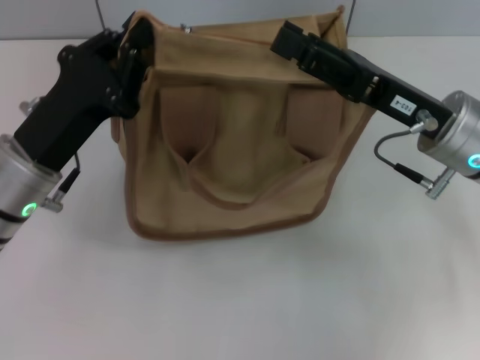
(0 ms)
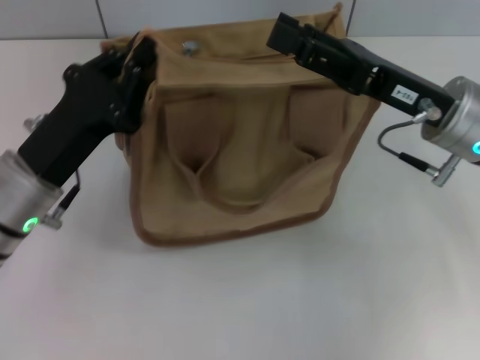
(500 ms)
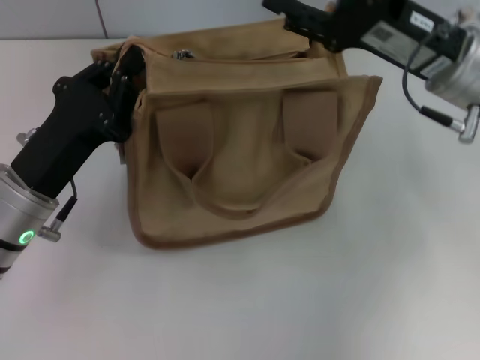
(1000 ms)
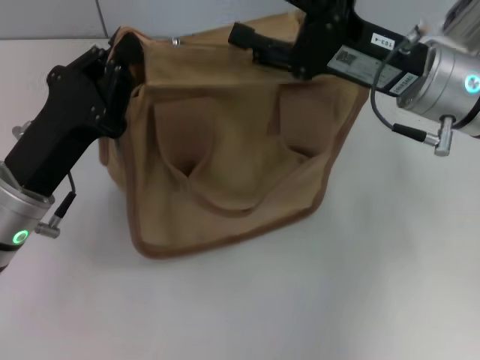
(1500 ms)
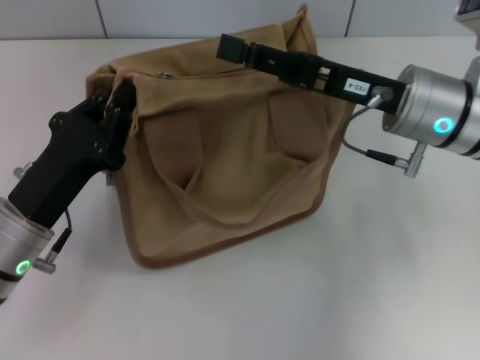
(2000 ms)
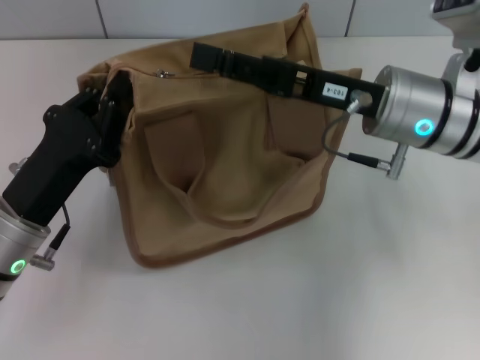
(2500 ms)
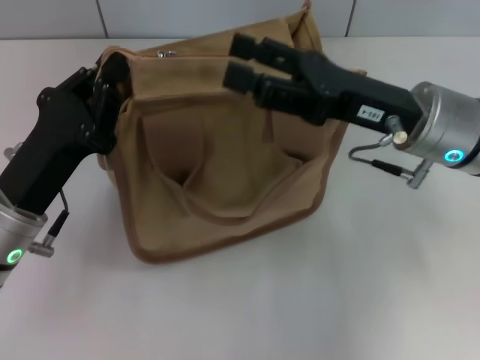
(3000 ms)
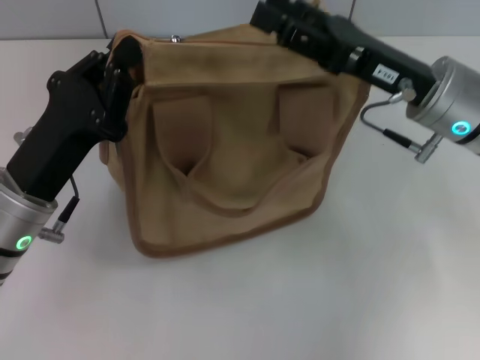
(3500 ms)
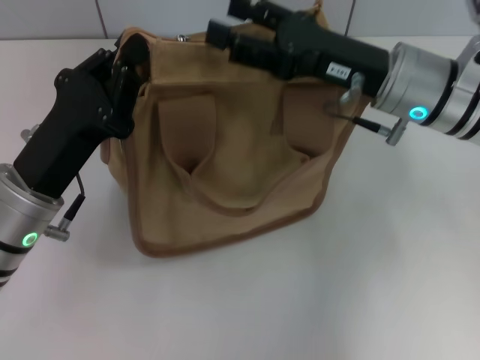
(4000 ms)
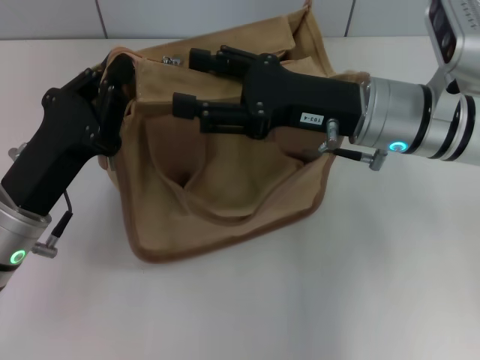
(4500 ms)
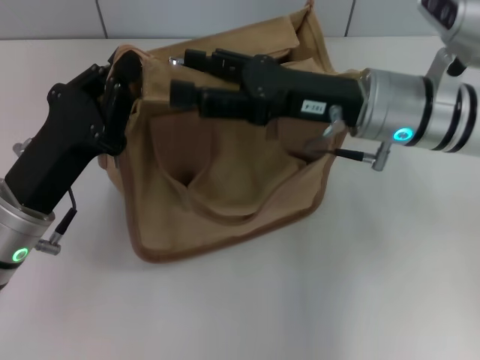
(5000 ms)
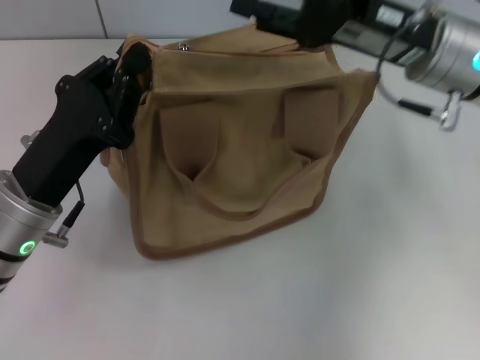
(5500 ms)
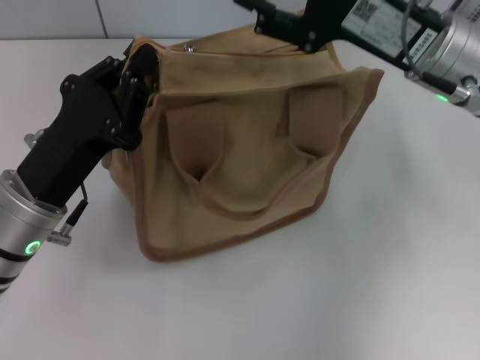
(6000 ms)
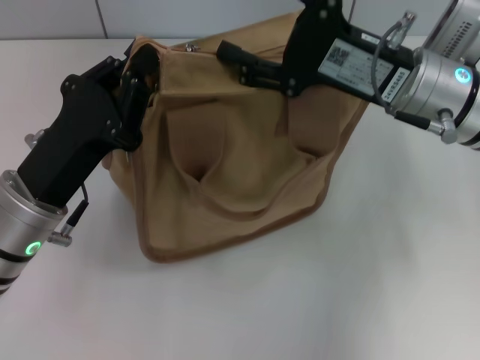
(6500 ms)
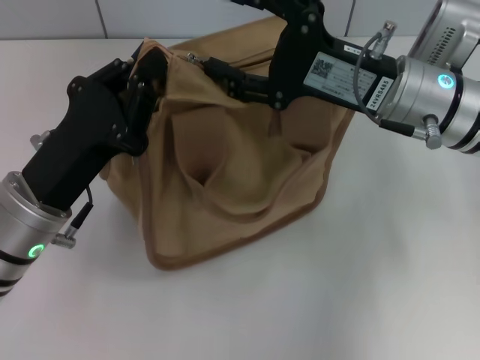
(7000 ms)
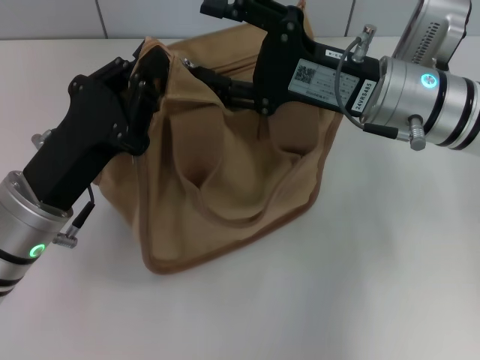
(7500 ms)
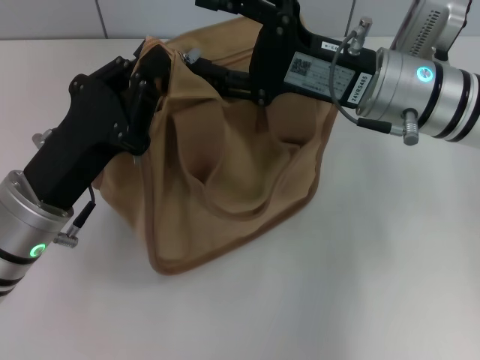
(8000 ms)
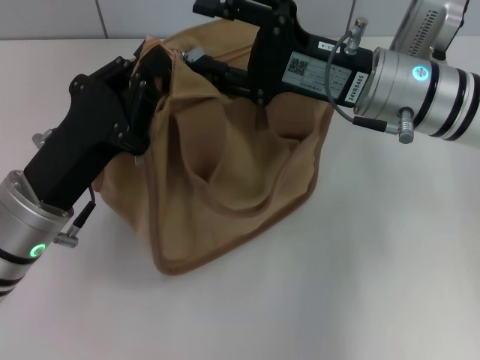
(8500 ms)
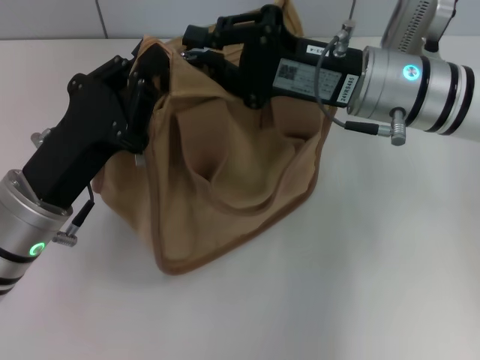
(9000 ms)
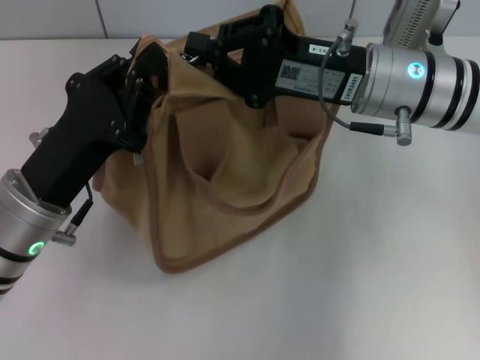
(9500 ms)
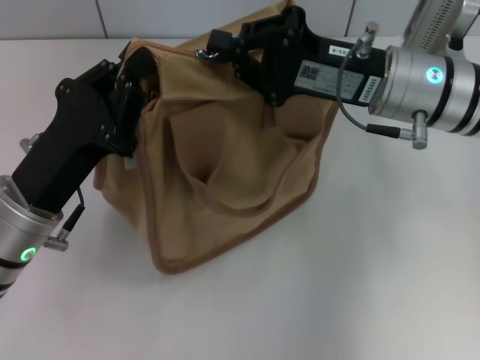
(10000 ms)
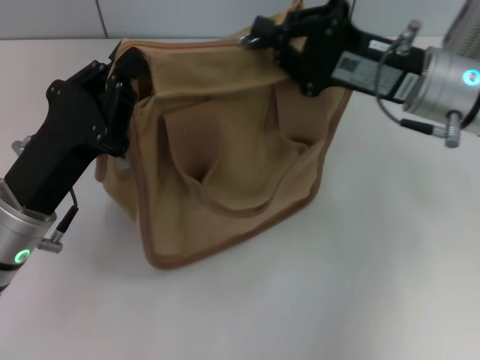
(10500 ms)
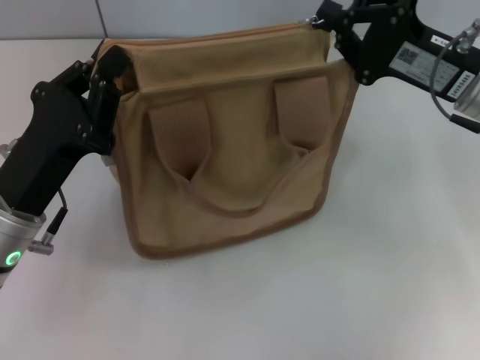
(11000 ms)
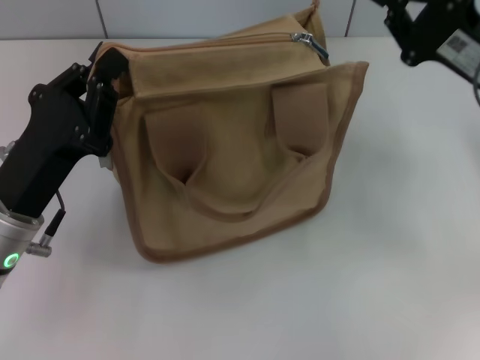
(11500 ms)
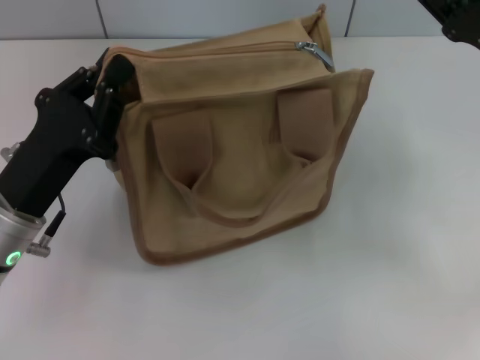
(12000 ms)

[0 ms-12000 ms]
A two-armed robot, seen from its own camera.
Step, 0 ms to 11000 ms: Pull up the zipper with your right hand.
0 ms to 2000 ms: The left gripper ends up some 5 cm from where it was.
8000 ms to 10000 ms: The right gripper closes its fingers.
10000 ms to 12000 ms: The right gripper goes approximately 10 cm to the right, and opens its fingers.

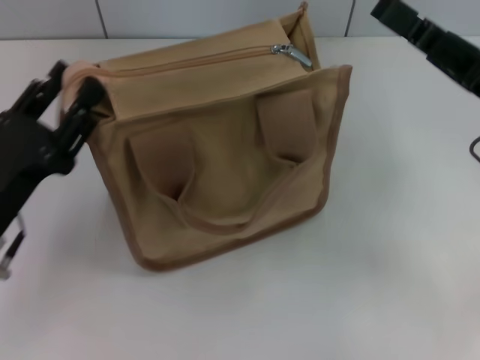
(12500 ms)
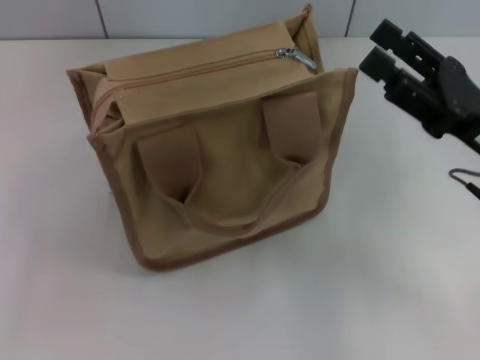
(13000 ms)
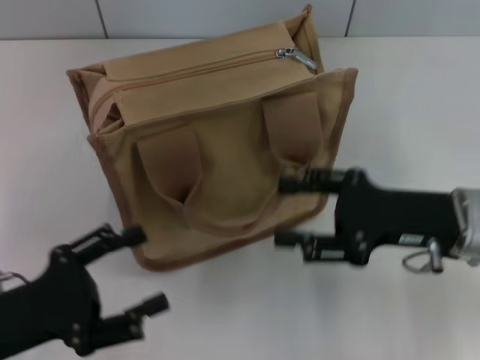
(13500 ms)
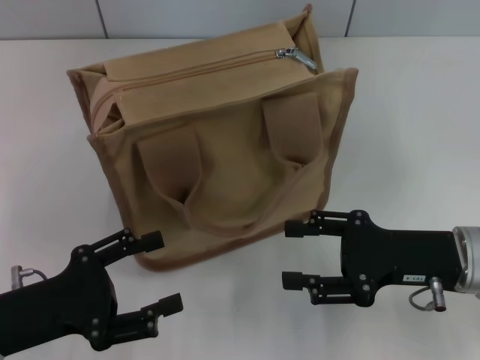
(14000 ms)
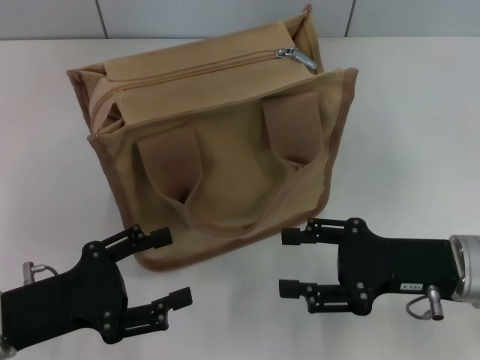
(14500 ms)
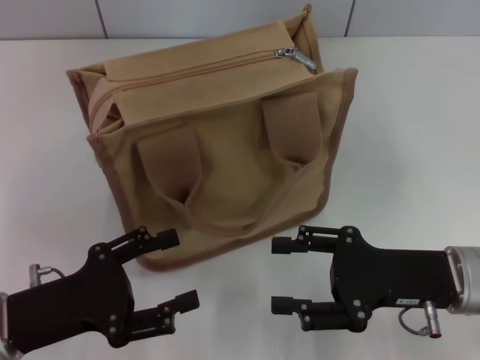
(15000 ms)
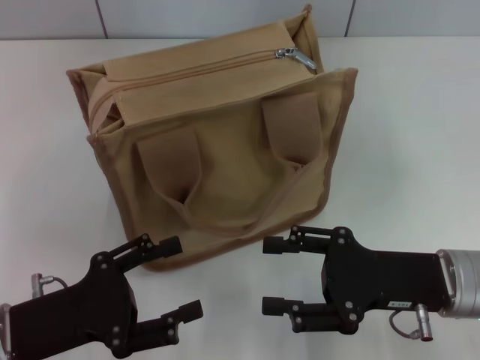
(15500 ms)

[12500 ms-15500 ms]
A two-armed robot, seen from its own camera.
12500 ms to 14000 ms: The left gripper opens its fingers, while the right gripper shifts roughly 5 cm downward.
14000 ms to 15500 ms: The grippers make only small movements.

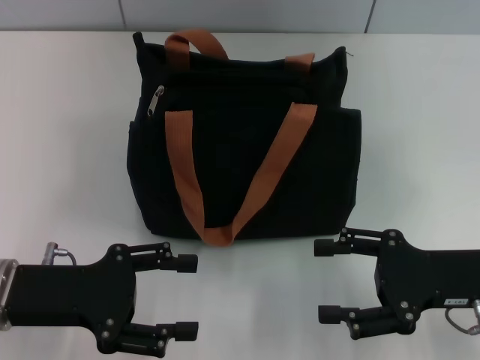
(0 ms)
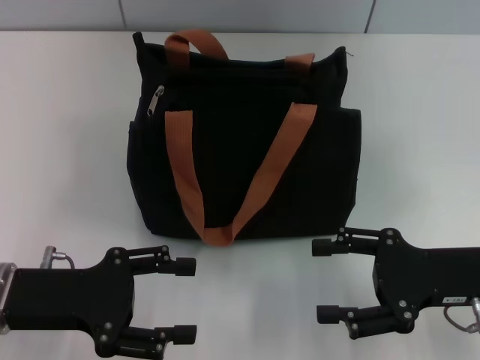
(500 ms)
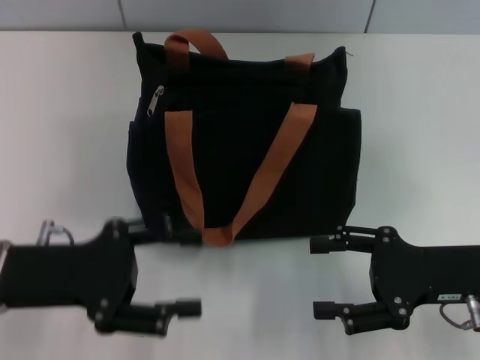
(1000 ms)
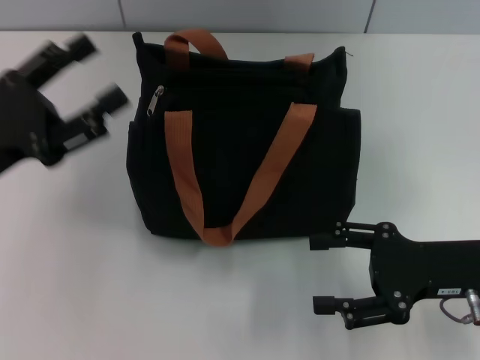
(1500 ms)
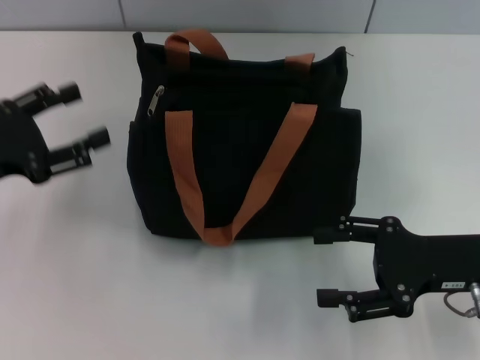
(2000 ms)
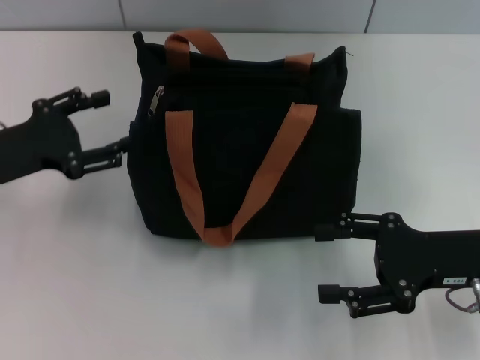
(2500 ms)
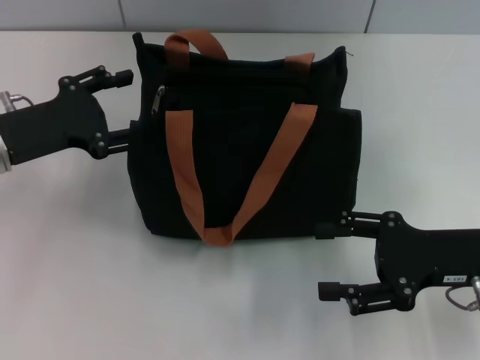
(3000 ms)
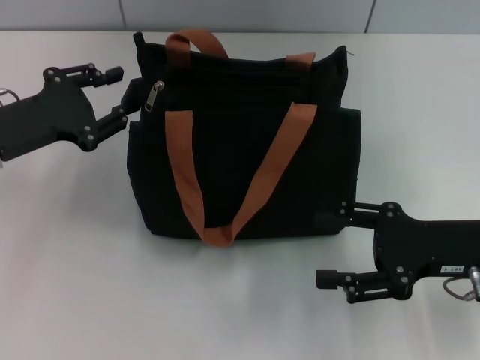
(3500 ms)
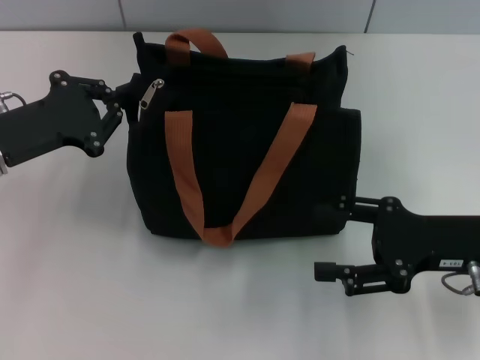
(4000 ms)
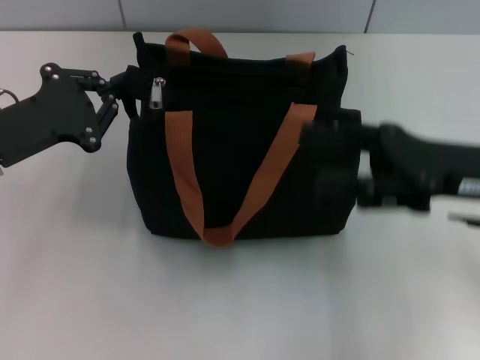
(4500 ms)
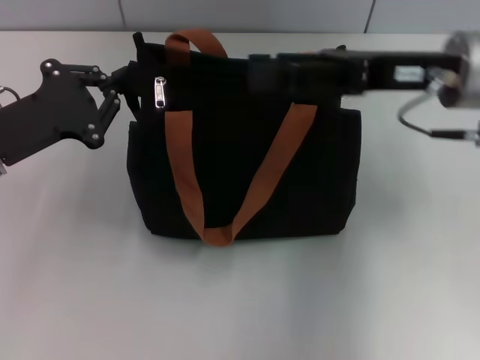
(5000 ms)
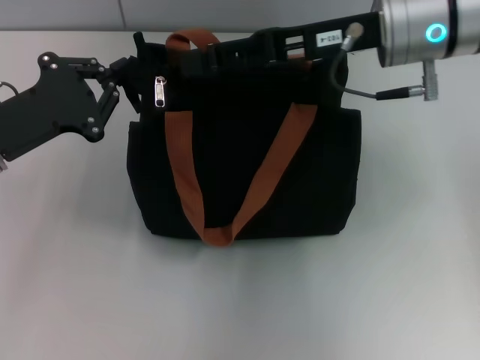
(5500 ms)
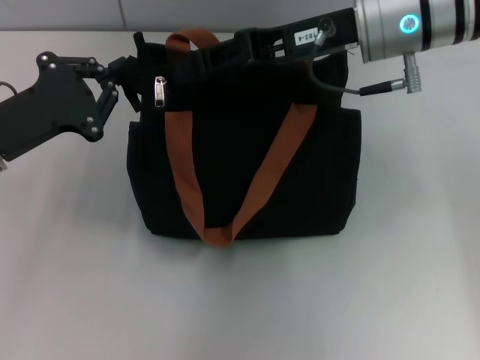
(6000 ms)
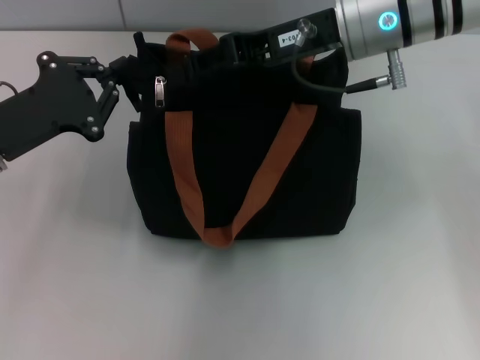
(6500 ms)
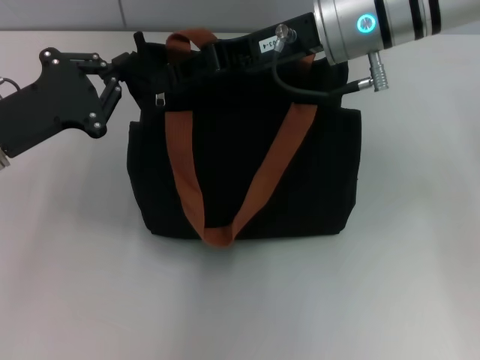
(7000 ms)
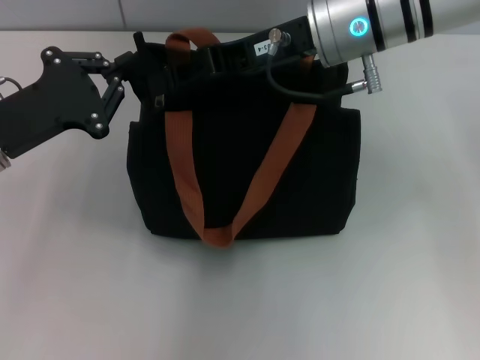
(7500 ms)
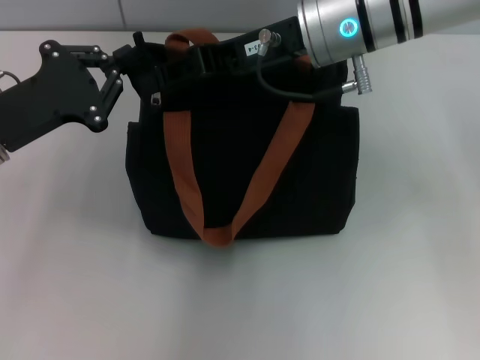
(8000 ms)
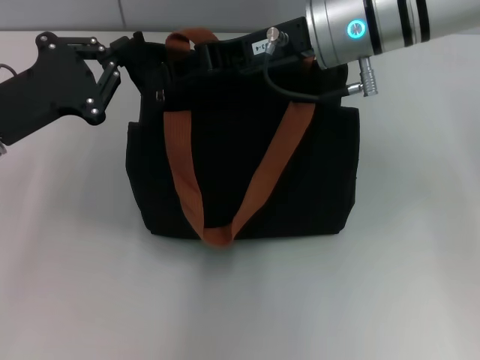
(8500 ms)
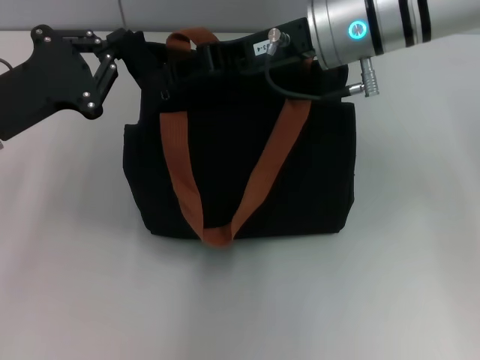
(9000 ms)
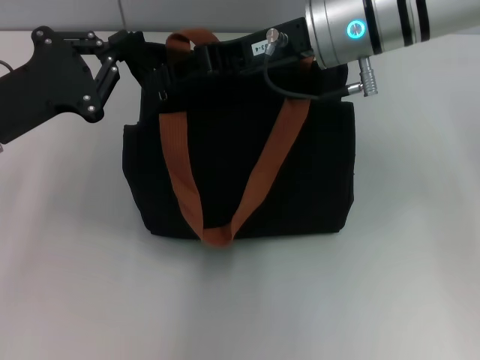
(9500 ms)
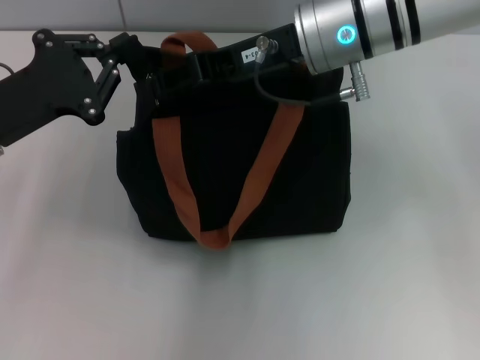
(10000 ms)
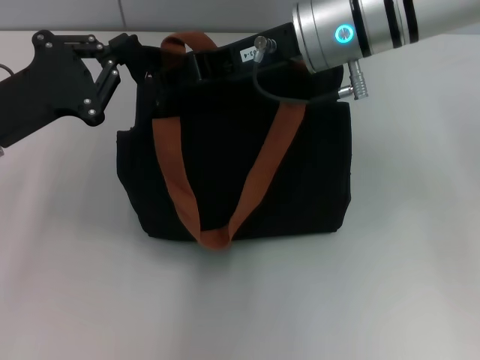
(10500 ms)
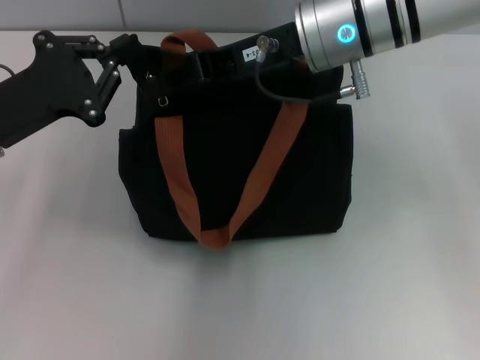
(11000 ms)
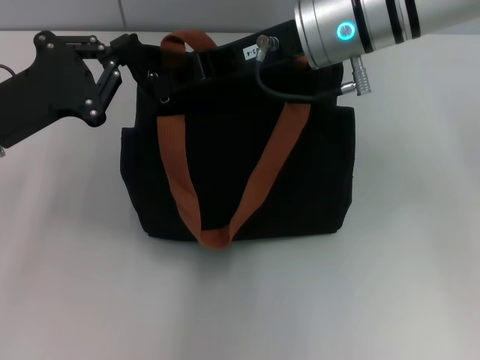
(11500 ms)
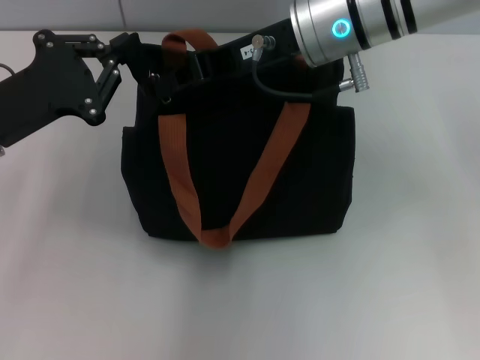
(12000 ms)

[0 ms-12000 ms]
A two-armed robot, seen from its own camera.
0 ms to 2000 ms: The left gripper moves to the left and forward, approximately 10 cm.
2000 ms to 4000 ms: The left gripper shifts by roughly 5 cm, and closes its fingers.
4000 ms to 6000 ms: The right gripper travels forward, upward and to the left by about 25 cm, and closes its fingers.
6000 ms to 8000 ms: The grippers stay close to where they were, moving slightly.
8000 ms to 10000 ms: The two grippers keep their place.
10000 ms to 12000 ms: The right gripper closes up.
